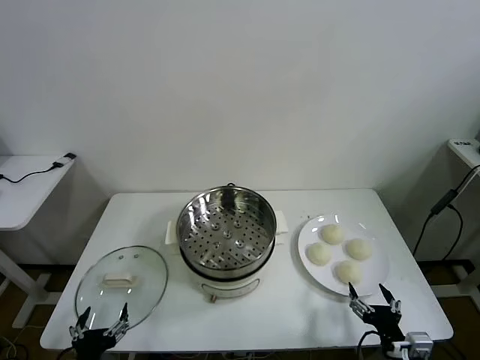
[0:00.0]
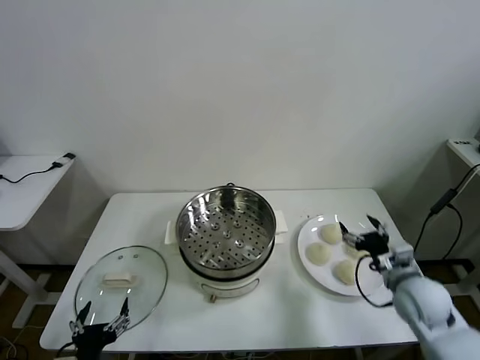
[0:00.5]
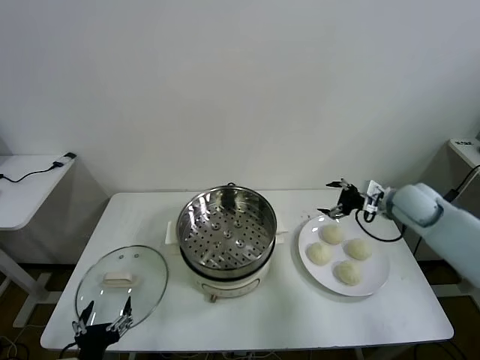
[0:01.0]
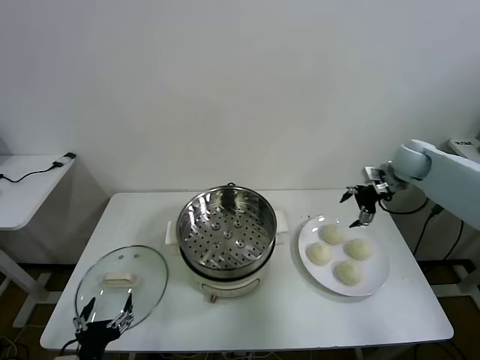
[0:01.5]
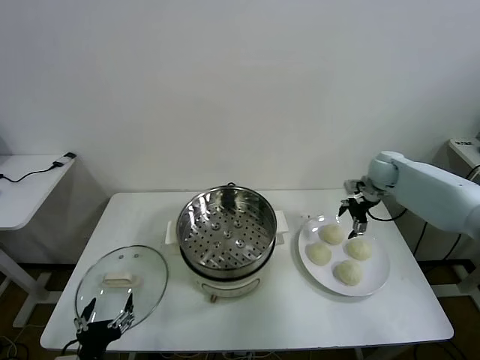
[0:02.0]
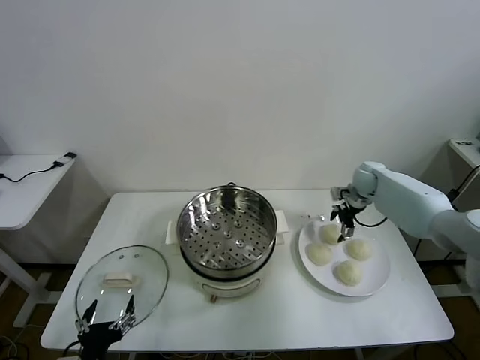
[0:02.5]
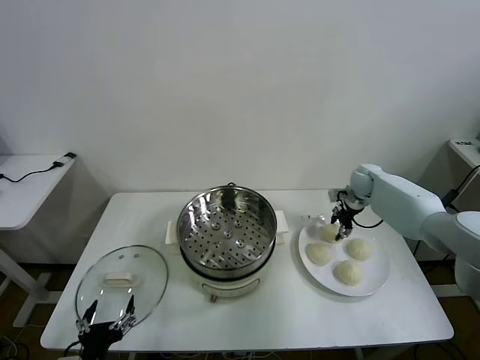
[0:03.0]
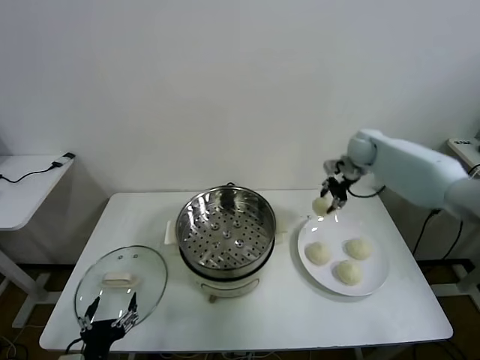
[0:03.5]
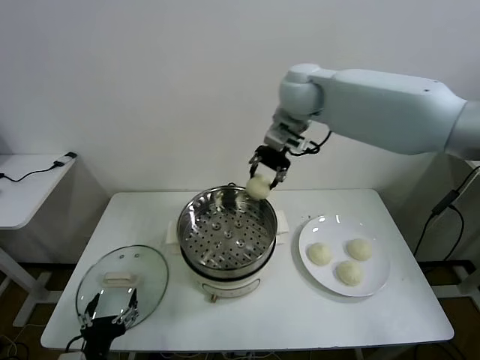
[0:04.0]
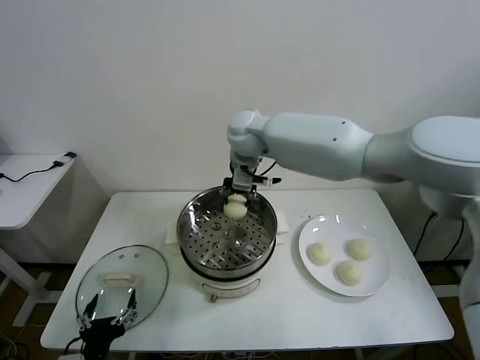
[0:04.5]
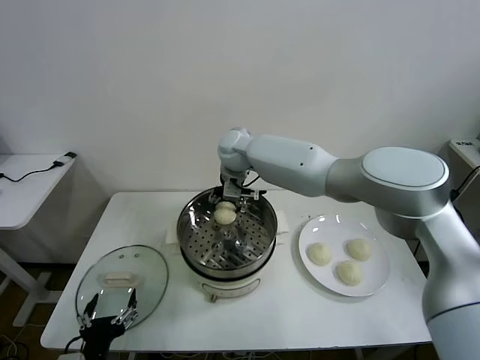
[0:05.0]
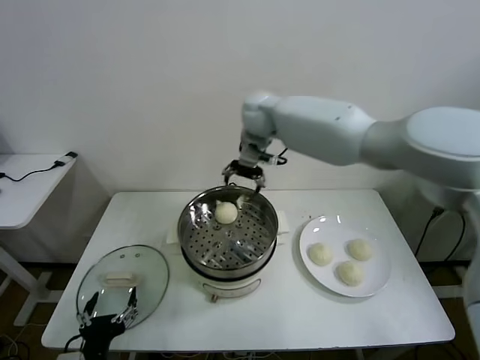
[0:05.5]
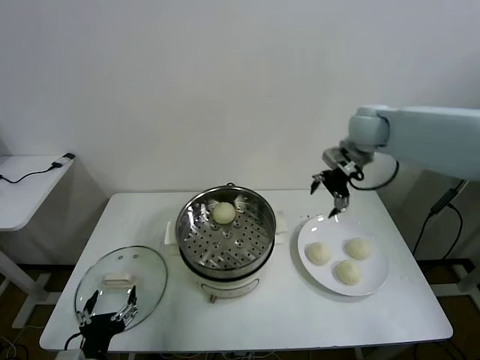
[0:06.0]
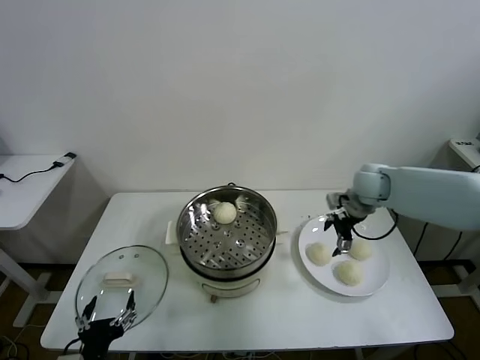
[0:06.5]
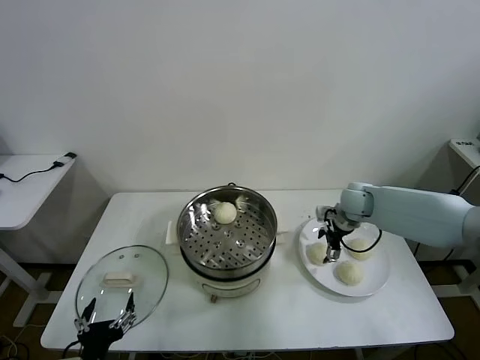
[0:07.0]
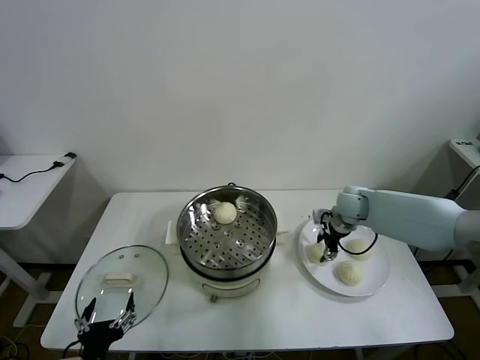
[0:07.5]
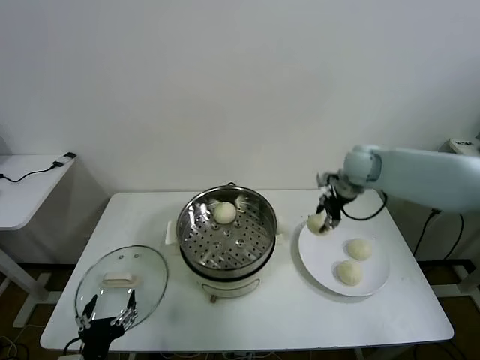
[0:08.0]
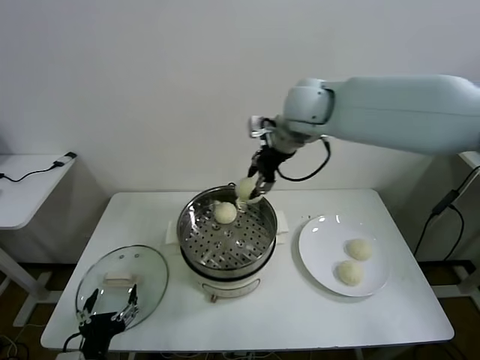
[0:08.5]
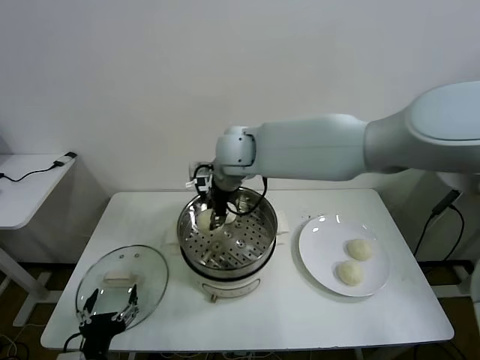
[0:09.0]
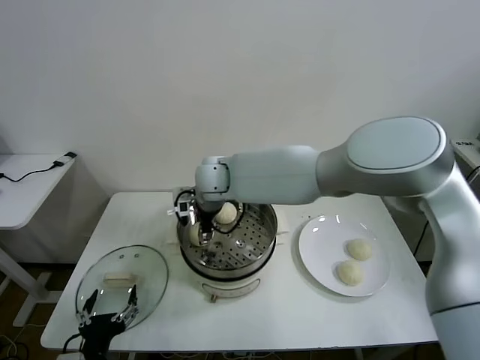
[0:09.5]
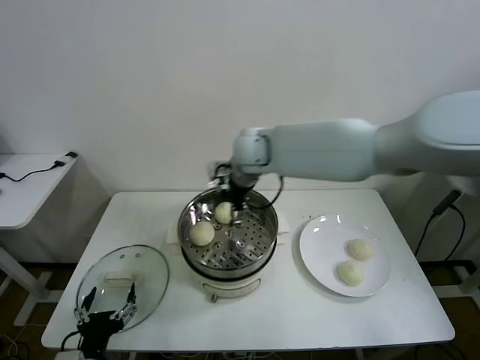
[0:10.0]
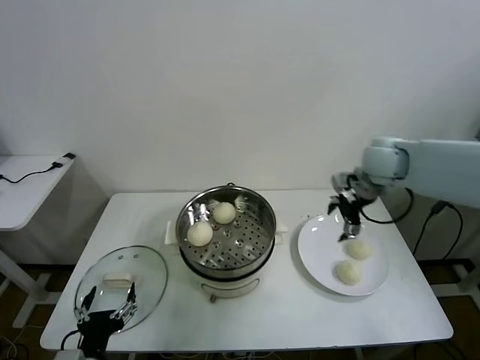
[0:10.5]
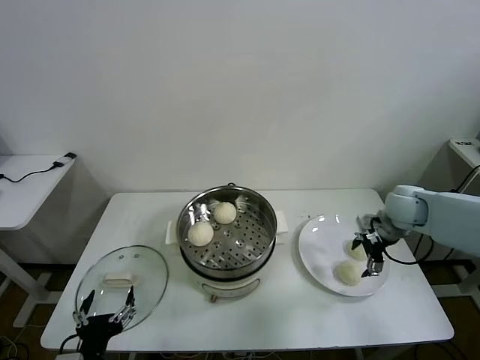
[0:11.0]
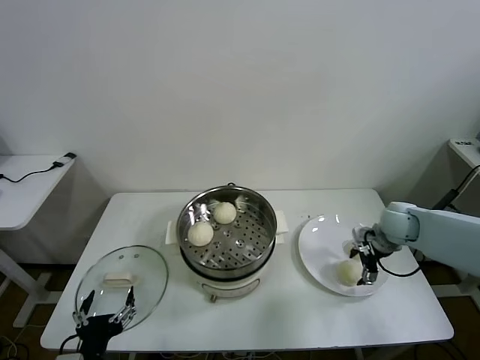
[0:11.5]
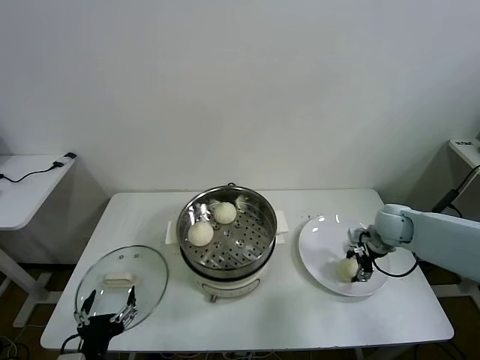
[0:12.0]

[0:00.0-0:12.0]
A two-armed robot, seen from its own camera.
Task of the whole recording: take steamed baozi put them in steamer then cover it.
Step, 0:00.0 to 0:03.0: Grasp the baozi in the plate with right gripper.
Step, 0:03.5 to 0:05.0: Place the baozi on the steamer with right gripper.
Step, 0:05.5 to 0:07.5: Grasp the baozi in the plate with right gripper.
Step, 0:08.0 to 0:09.5: Place the baozi on the steamer with right gripper.
Step, 0:10.0 to 0:12.0: Grasp the baozi in the plate with right gripper.
0:02.0 to 0:04.0: The right gripper goes some 40 cm to the left and upward, and closes up.
0:04.0 to 0:06.0: The right gripper shifts approximately 25 cm to the right and downward, and opens.
0:06.0 to 0:08.0: The right gripper goes downward and returns, about 20 cm each way, and closes its fingers.
0:08.0 to 0:10.0: The right gripper heads to the left, covering roughly 25 cm, and opens.
0:10.0 to 0:12.0: The right gripper is displaced to the right and downward by roughly 40 cm, and closes up.

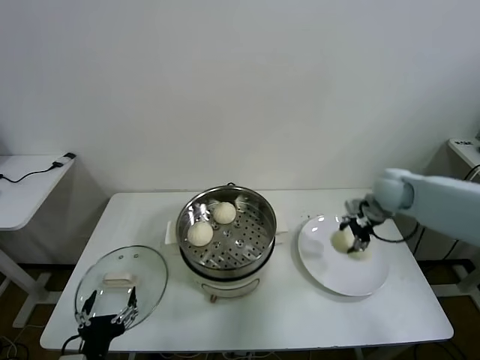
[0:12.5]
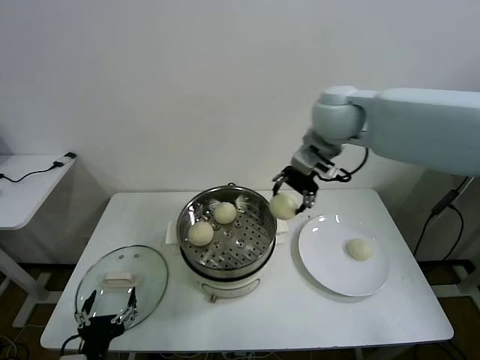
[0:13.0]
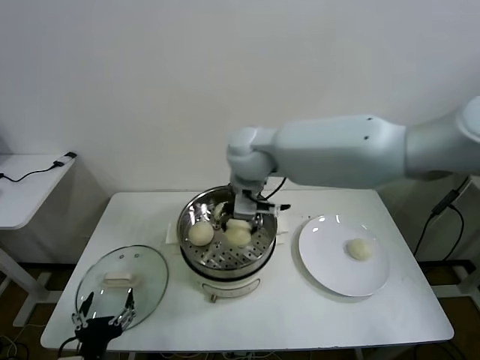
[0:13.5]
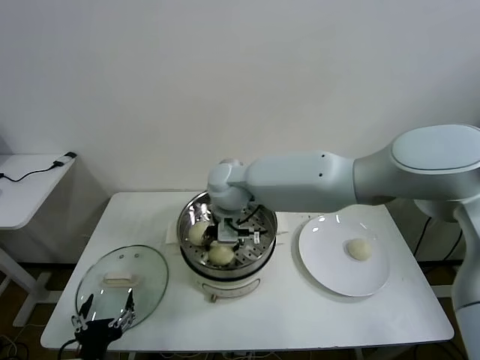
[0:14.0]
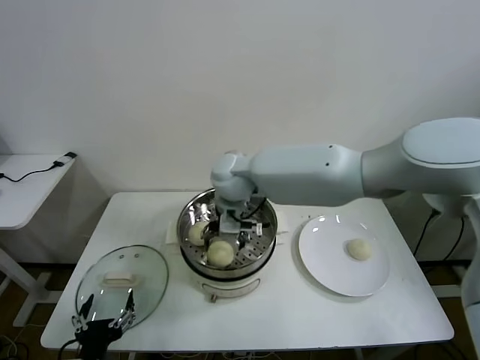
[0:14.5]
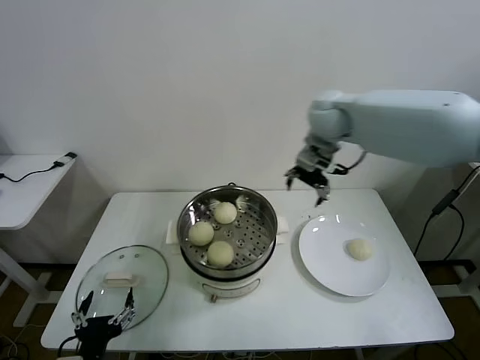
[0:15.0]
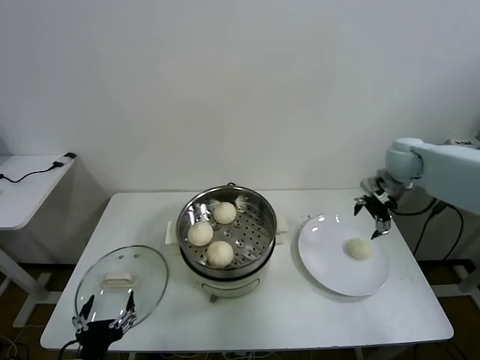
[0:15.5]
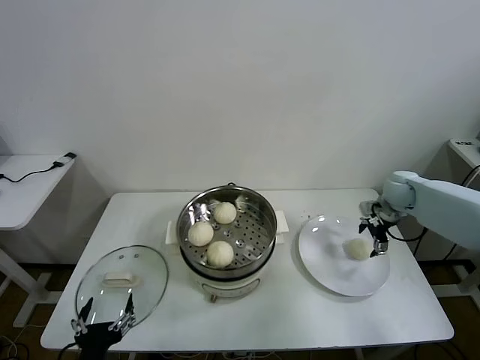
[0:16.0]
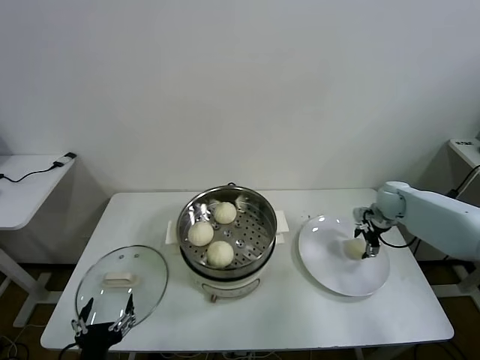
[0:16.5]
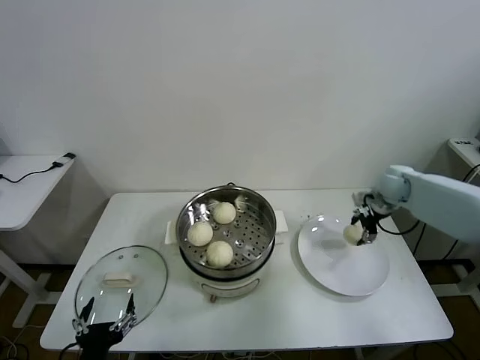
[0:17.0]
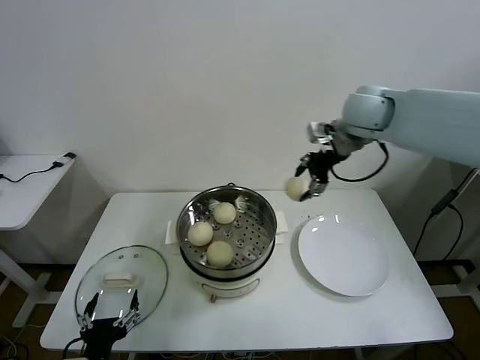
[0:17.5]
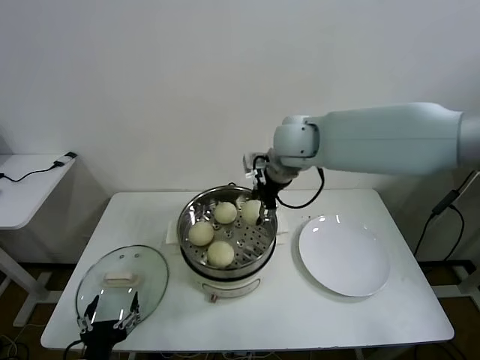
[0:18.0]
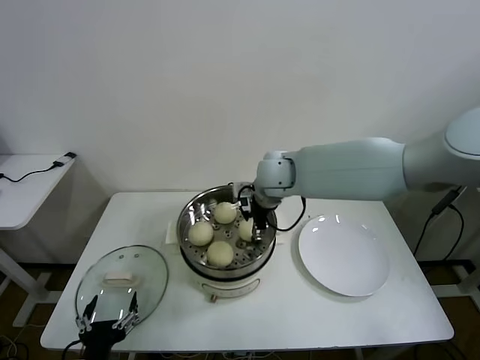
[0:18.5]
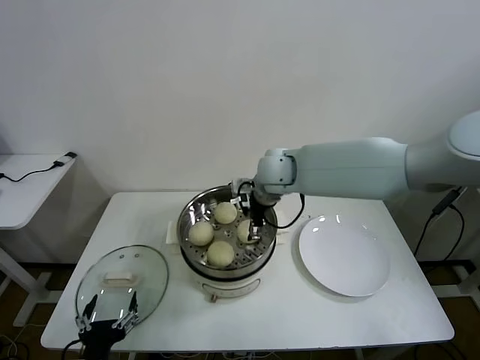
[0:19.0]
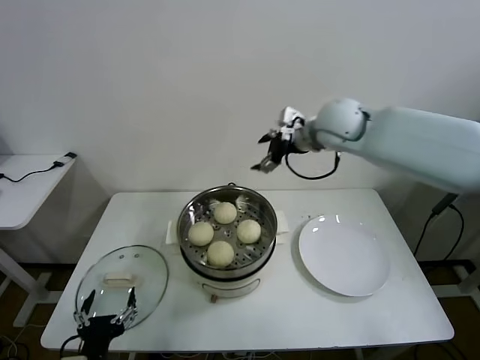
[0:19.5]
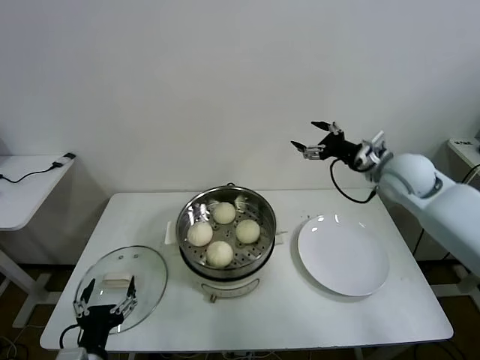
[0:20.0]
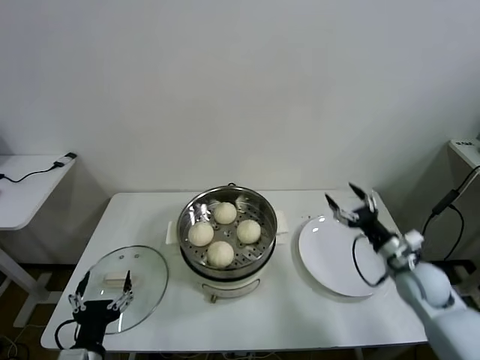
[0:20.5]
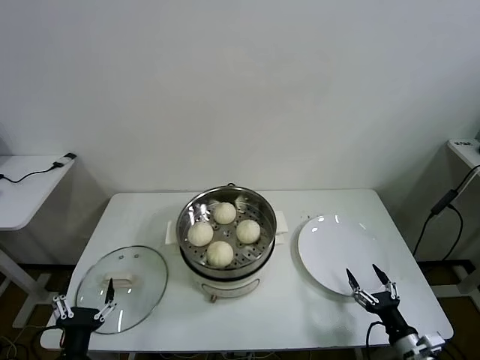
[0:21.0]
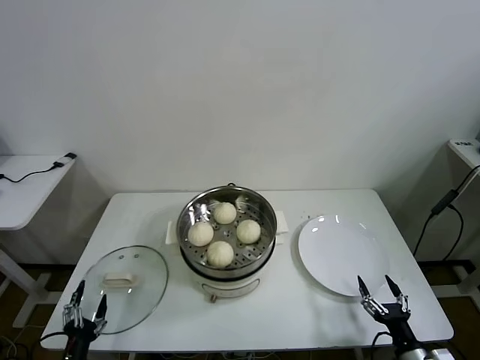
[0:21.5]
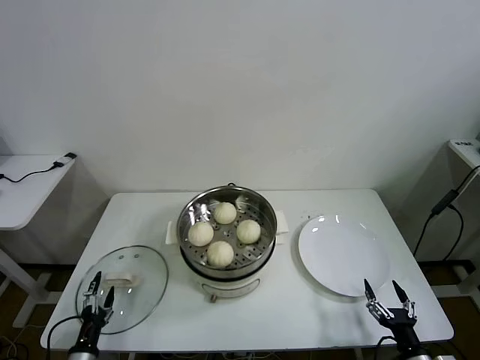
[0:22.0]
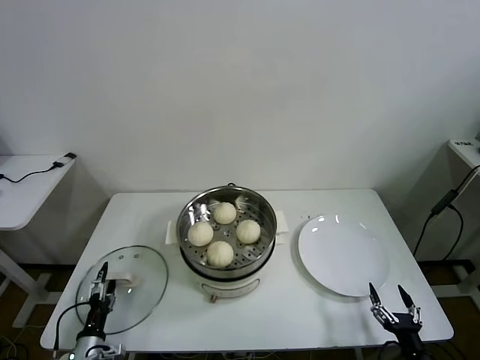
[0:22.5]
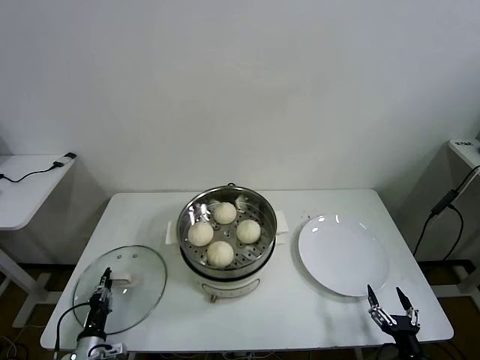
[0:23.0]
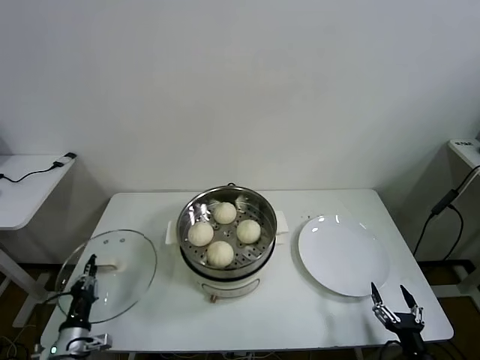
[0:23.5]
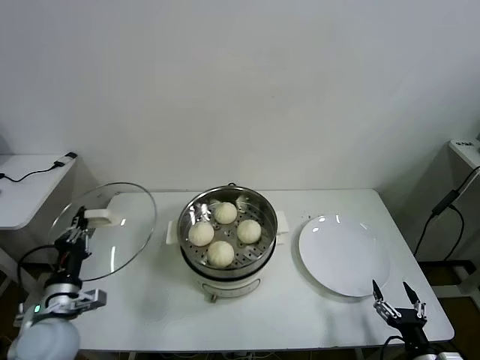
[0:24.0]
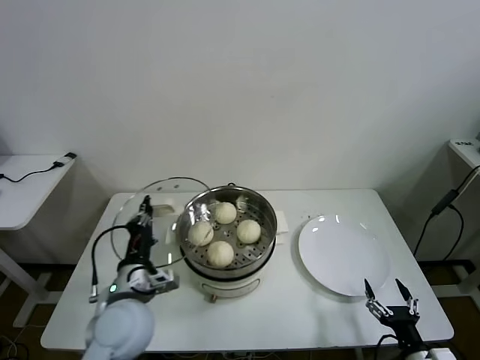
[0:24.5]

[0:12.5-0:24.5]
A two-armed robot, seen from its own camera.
Task of the whole recording: take steamed baozi put them in steamer then cover it.
Step, 0:12.5 to 0:14.0: Place the baozi on the steamer with right gripper.
Step, 0:14.5 to 0:16.5: Grasp the baozi in the plate with right gripper.
Step, 0:17.0 to 0:18.5: Place the baozi on the steamer with right gripper.
Step, 0:19.0 to 0:23.0: Grasp the pot lid with left gripper.
0:12.5 to 0:14.5: The right gripper goes some 35 cm to the left, and opens its fingers.
0:14.5 to 0:16.5: The right gripper shifts about 40 cm to the right.
0:16.5 to 0:18.5: The right gripper travels to the left and upward by some 35 cm.
0:18.5 to 0:20.5: The right gripper heads to the right, downward and backward, covering some 40 cm, and opens up.
0:20.5 to 0:22.5: The right gripper is displaced backward and downward by roughly 25 cm. The left gripper heads downward and to the left, covering about 20 cm.
0:22.5 to 0:24.5: The left gripper moves upward and to the right, approximately 30 cm, and closes its fingers.

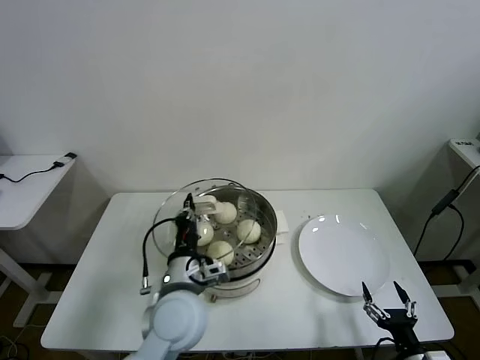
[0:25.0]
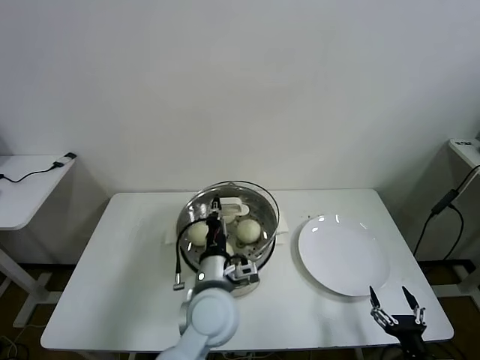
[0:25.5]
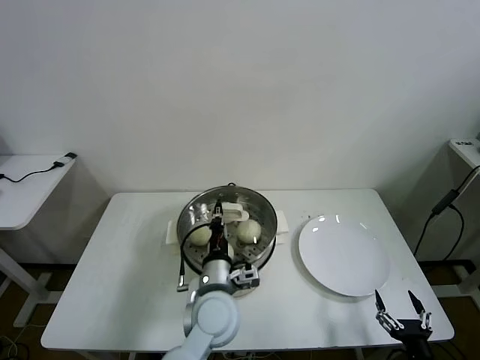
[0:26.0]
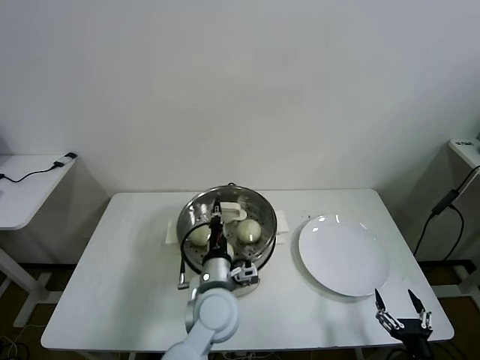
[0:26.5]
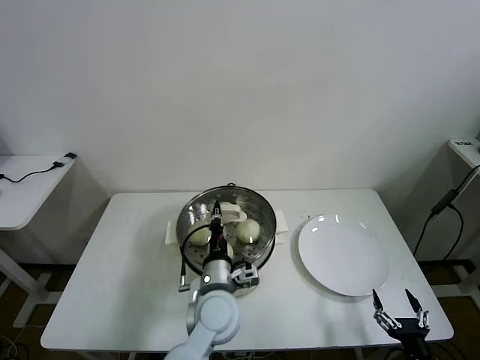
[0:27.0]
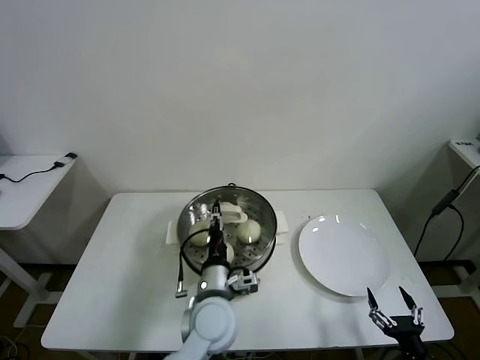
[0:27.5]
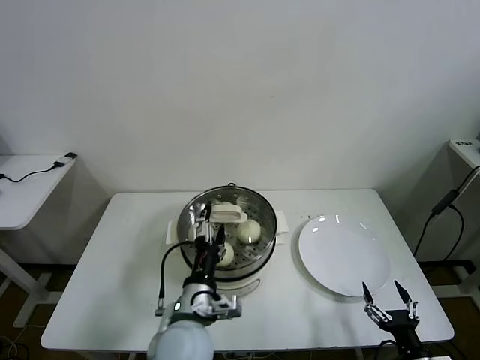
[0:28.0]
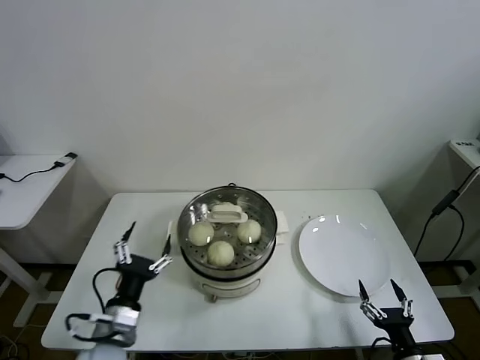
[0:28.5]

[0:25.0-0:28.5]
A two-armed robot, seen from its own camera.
Task of the whole recording: take steamed baozi put them in steamer then cover it.
Step, 0:25.0 to 0:27.0: Place the pot lid on the steamer with left gripper.
0:25.0 to 0:27.0: The left gripper travels to the right and downward by approximately 10 cm.
0:27.0 to 0:28.5: The left gripper travels to the left and backward by some 20 cm, and opens.
